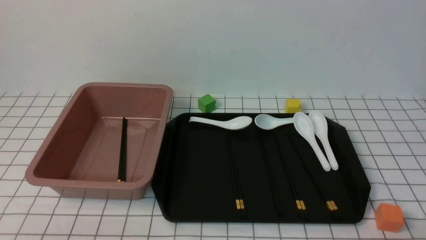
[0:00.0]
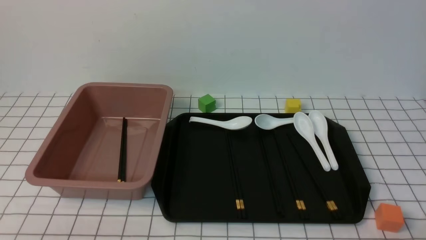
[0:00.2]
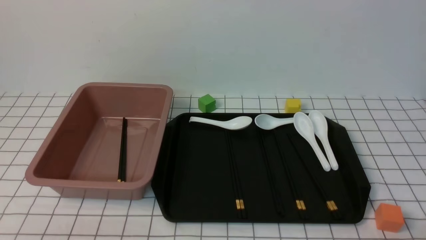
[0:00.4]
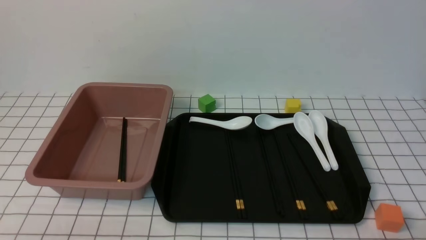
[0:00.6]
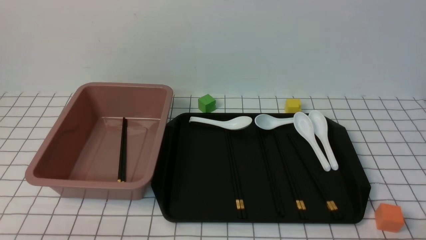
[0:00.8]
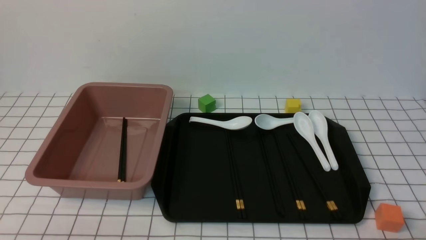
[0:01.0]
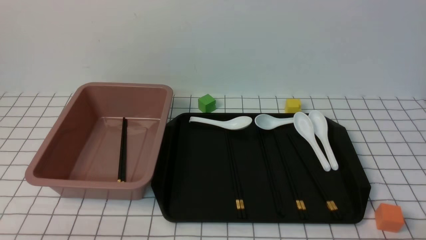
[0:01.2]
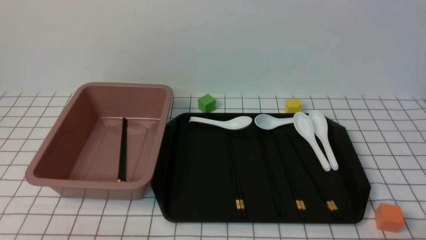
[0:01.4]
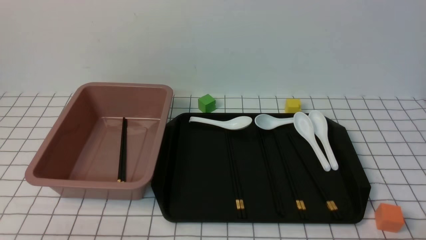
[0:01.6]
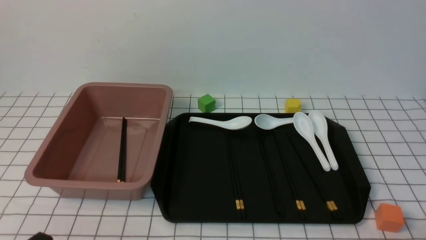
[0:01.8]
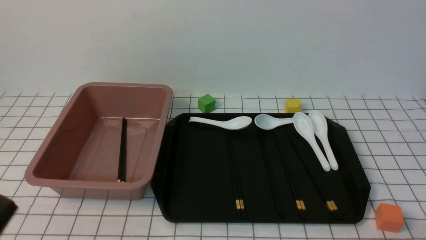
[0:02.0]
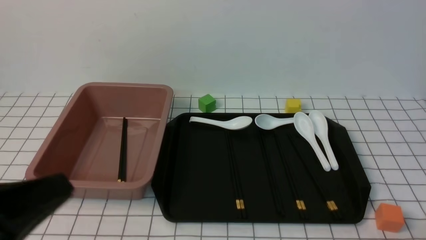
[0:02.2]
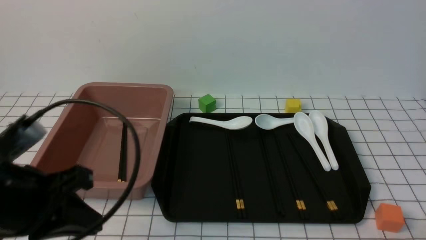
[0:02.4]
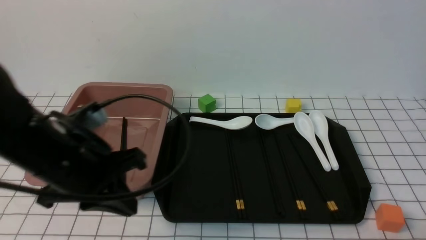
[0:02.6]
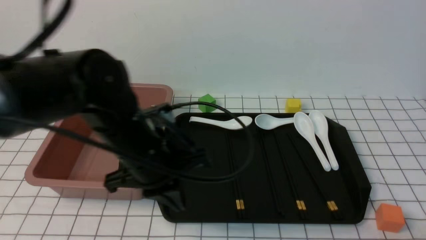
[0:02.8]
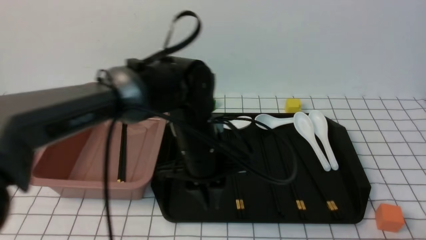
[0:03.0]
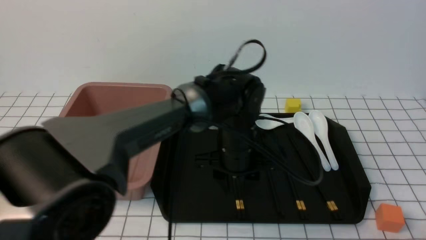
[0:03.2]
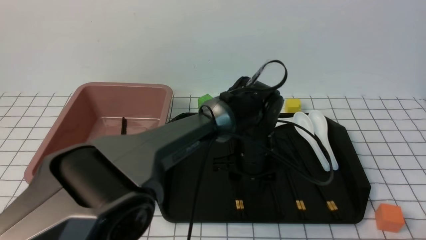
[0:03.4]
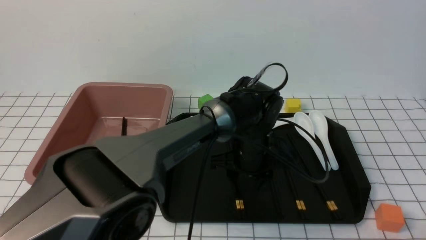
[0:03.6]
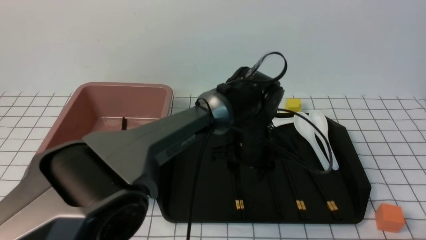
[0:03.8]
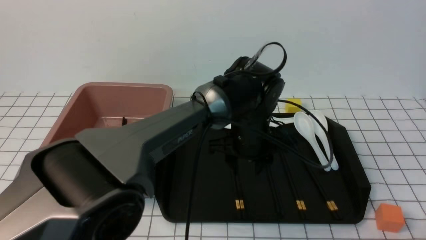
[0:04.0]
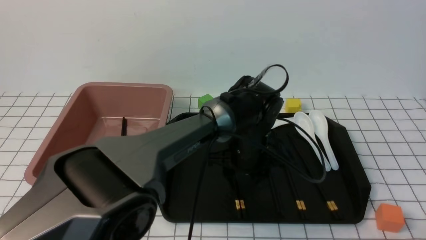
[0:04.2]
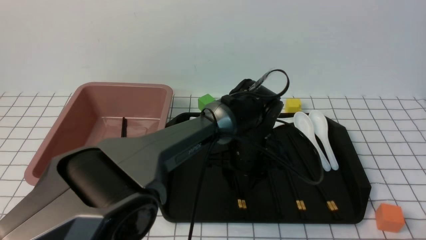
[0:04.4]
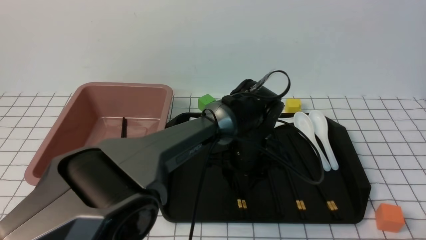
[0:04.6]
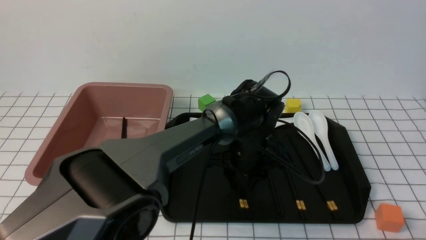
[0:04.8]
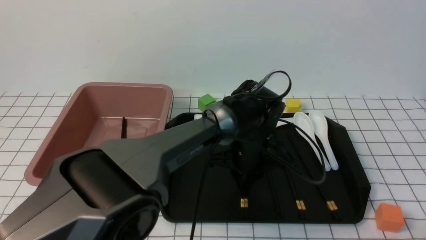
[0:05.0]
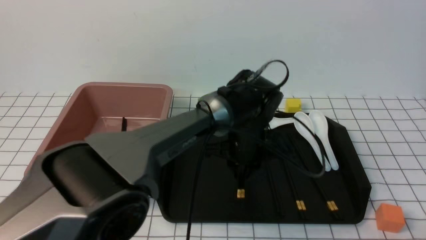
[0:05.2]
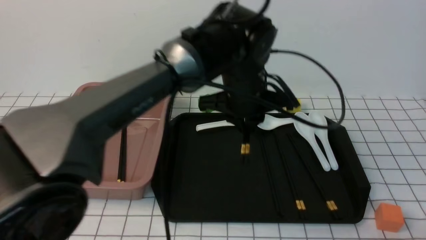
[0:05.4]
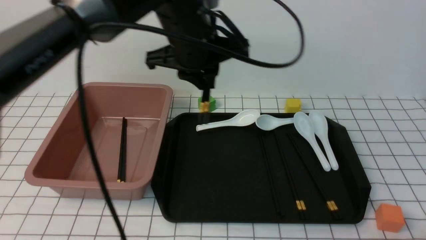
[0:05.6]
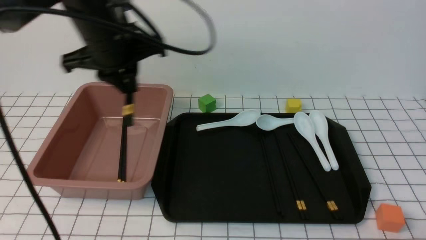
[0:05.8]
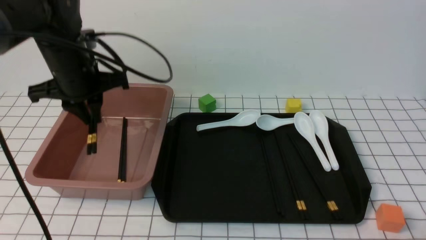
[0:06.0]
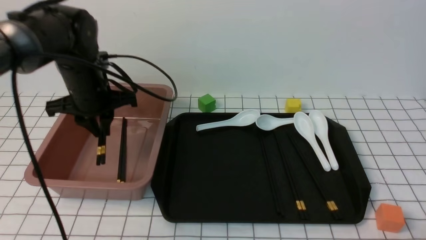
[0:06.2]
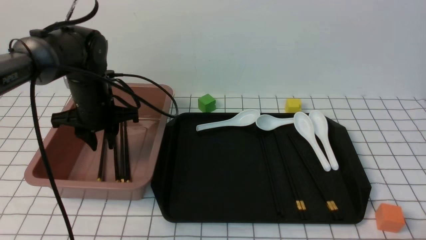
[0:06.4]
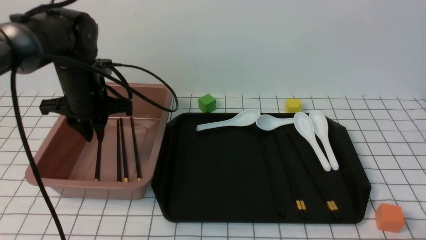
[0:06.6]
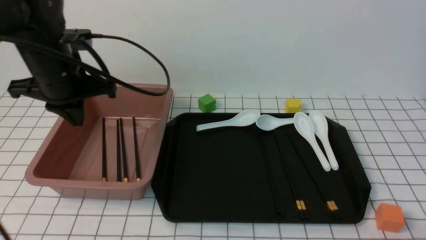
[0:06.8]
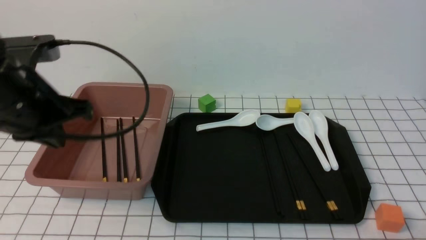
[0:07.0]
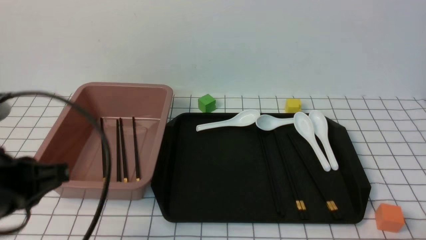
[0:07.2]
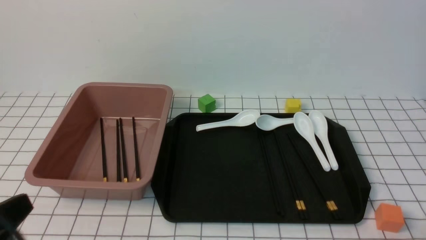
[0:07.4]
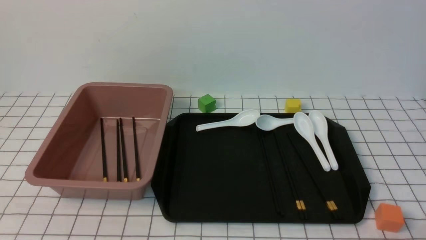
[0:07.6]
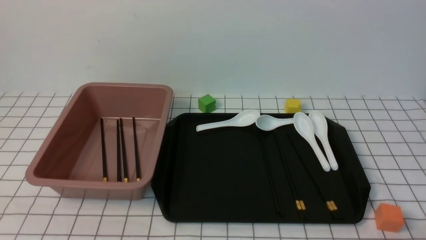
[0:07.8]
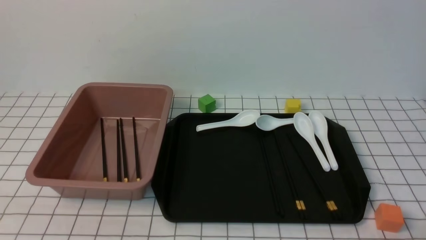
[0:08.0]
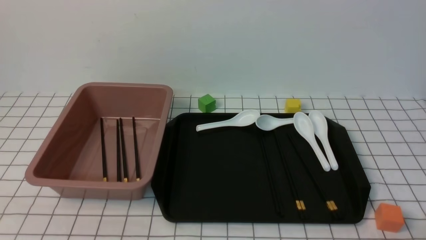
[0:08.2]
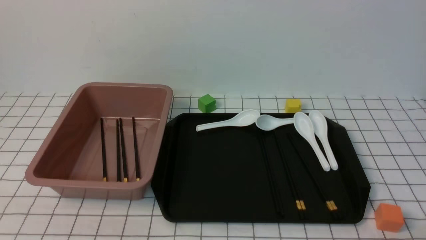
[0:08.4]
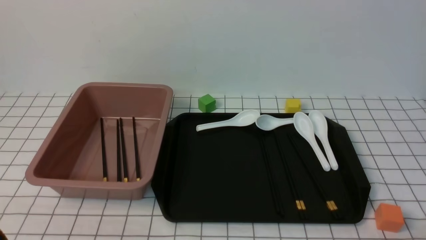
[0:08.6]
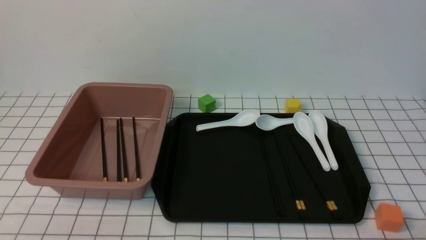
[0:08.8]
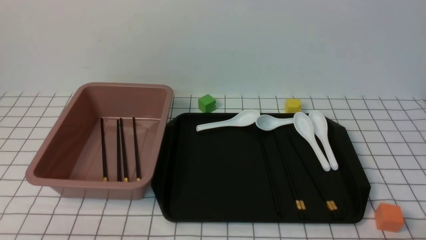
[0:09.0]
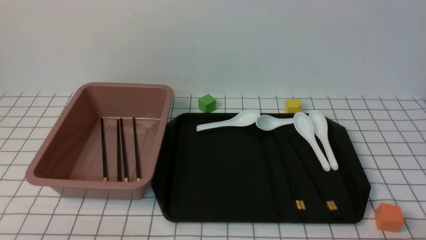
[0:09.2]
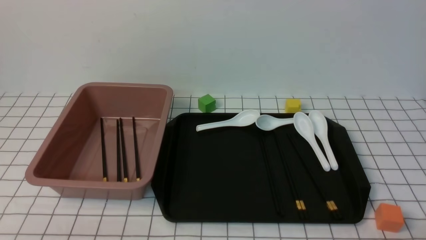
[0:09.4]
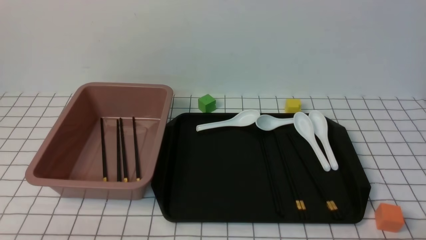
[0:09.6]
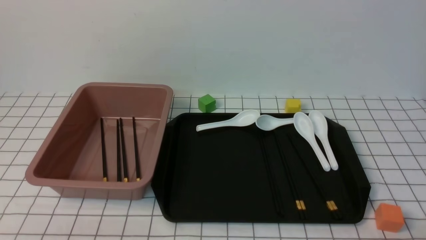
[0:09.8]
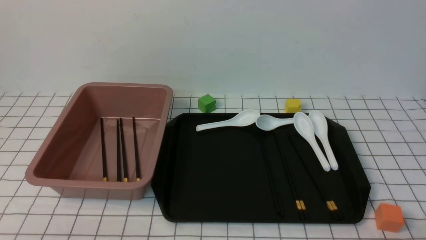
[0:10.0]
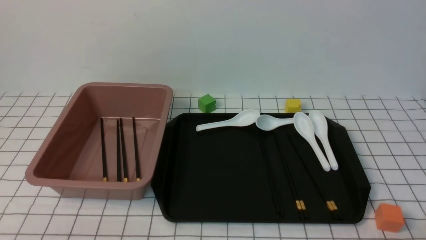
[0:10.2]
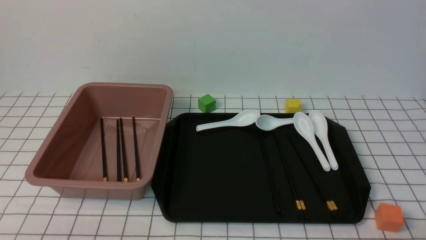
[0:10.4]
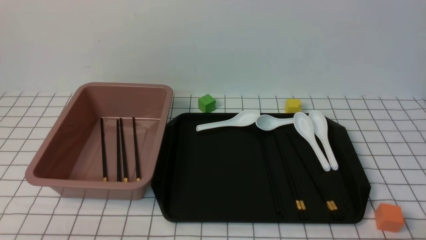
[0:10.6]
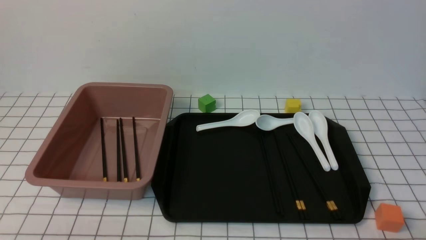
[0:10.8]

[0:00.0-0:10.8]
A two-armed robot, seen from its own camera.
Step, 0:00.0 to 0:05.4: use the left arm to grab a pair of chopsticks.
Step, 0:05.6 to 0:06.6: use the left arm to put the chopsticks into the lunch box.
0:01.6 to 0:03.0: The left gripper goes roughly 30 cm forward and to the right.
0:03.0 to 0:04.6: The left gripper shifts roughly 15 cm to the right, downward and forward, and opens its fingers.
0:04.6 to 0:06.2: The left gripper travels to the left and upward by roughly 30 cm, and closes.
0:06.2 to 0:07.8: The left gripper moves backward, roughly 35 cm, and closes its fingers.
0:09.2 to 0:10.8: Both grippers stay put.

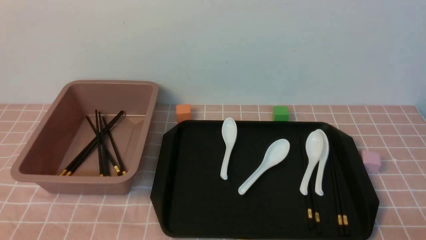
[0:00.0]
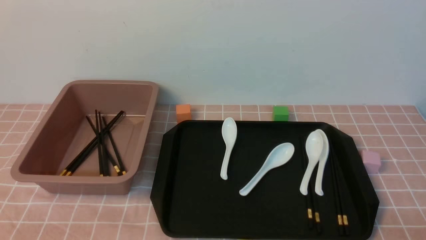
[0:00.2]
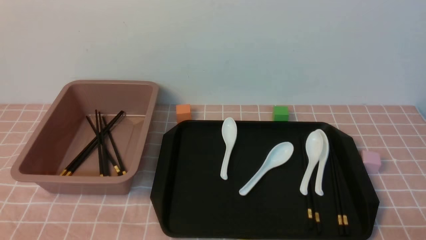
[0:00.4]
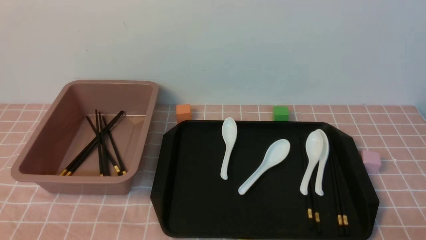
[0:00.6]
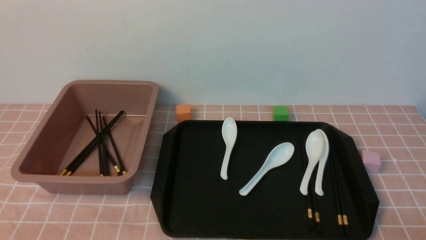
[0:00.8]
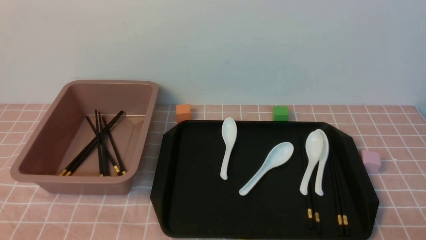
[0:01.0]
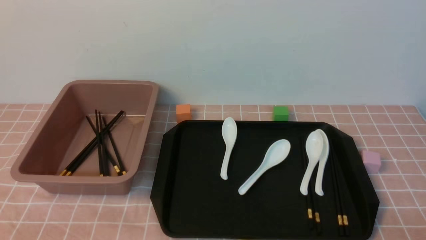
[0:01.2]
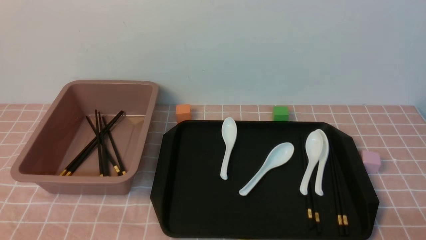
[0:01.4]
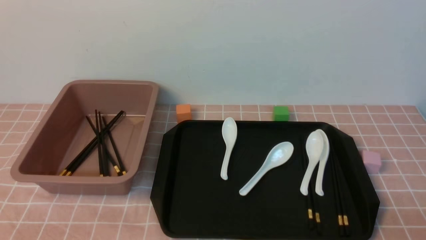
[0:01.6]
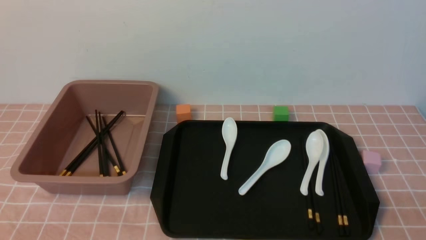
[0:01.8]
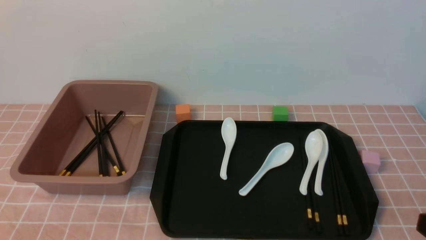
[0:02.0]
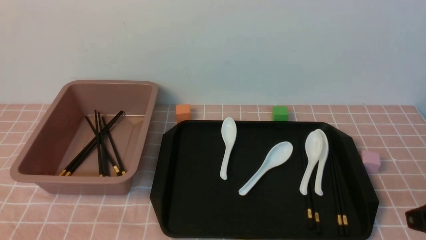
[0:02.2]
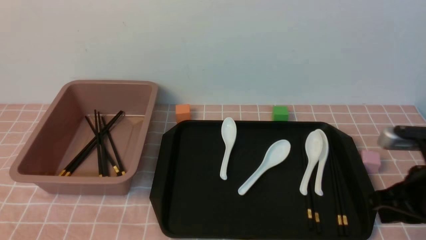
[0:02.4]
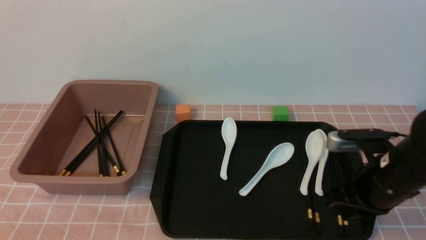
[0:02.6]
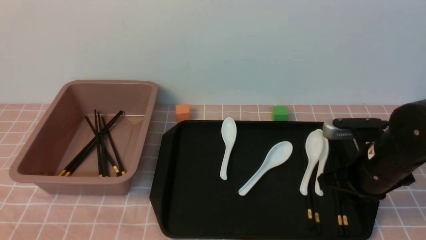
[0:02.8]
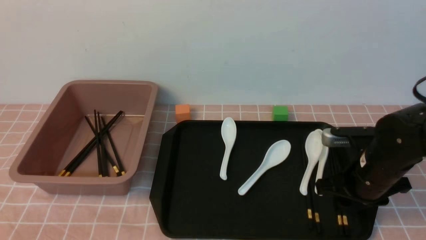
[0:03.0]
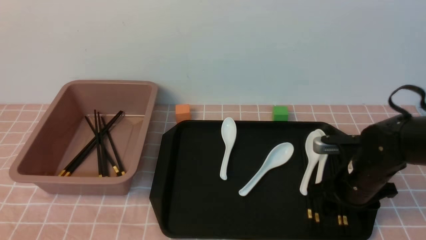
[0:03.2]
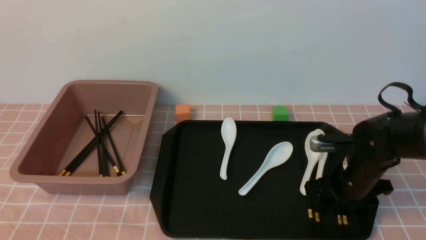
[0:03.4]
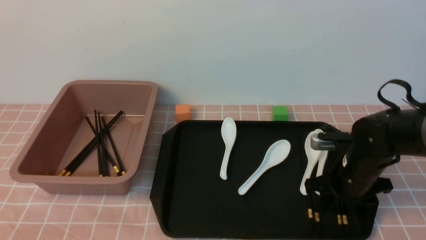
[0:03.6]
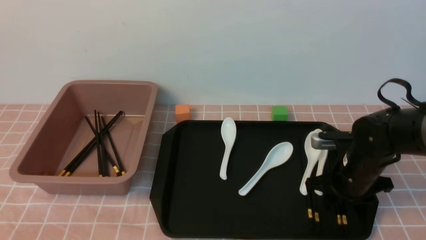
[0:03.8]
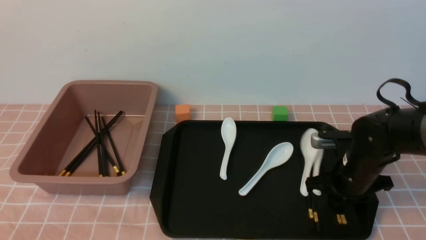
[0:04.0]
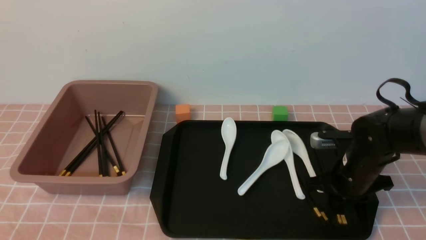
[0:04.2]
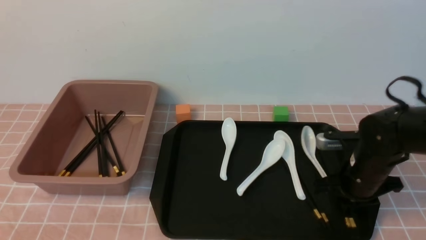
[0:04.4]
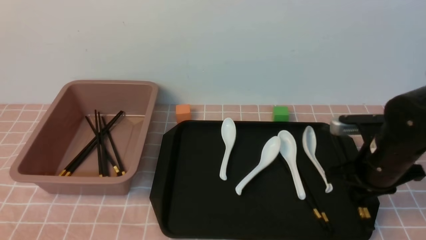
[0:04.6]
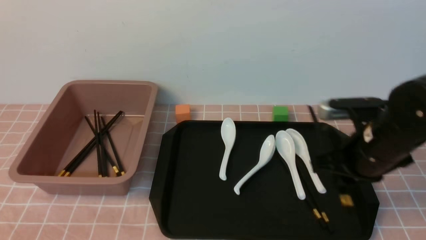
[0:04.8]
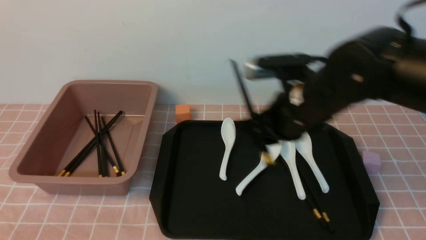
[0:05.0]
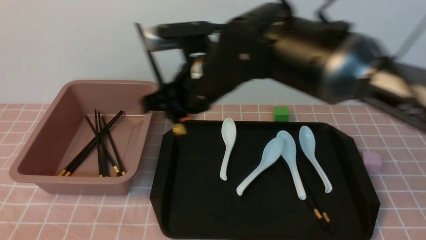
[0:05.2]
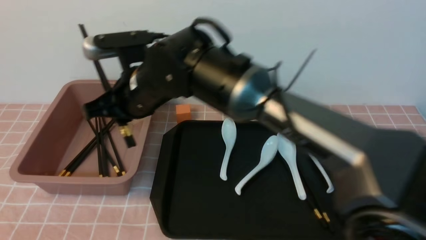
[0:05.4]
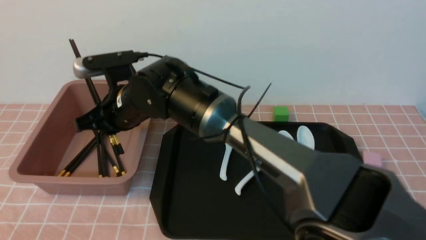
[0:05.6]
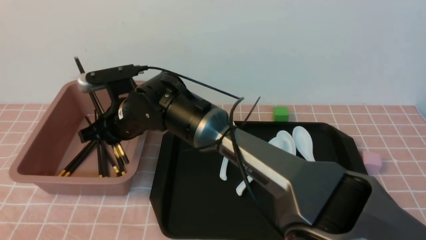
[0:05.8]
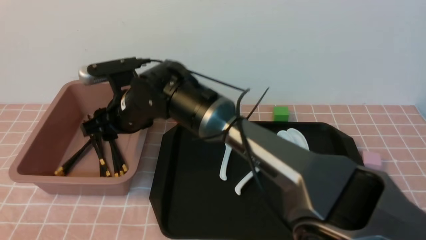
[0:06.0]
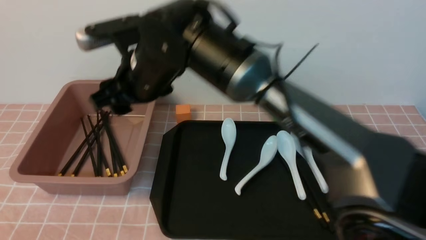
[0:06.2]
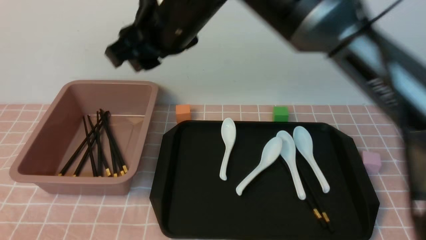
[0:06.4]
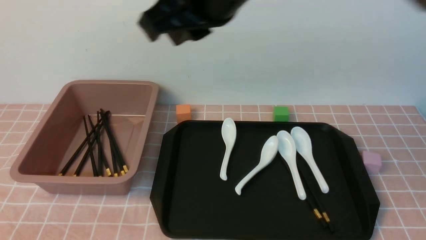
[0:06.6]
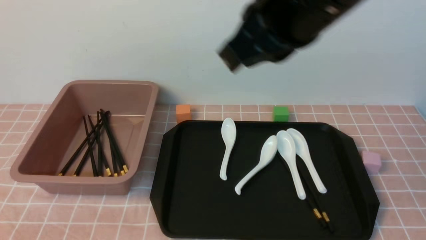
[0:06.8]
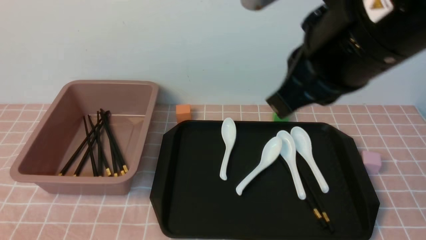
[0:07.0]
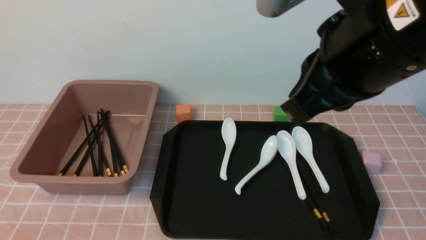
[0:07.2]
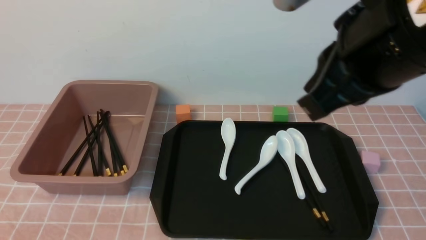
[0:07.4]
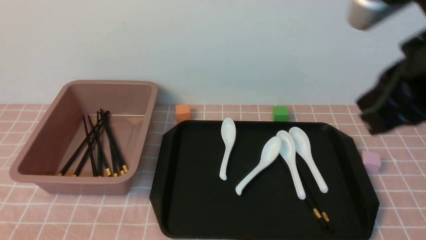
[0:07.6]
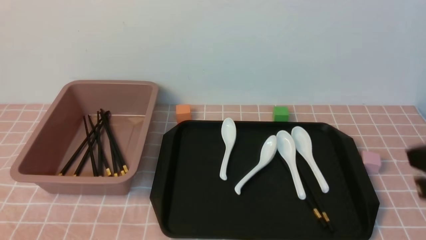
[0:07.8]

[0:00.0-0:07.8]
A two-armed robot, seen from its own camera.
Step, 0:00.0 to 0:04.6: use the right arm to grab a pair of chopsticks.
Step, 0:05.0 to 0:07.0: use the right arm to put the chopsticks into the lunch box.
0:01.6 to 0:03.2: The right gripper moves forward, about 25 cm, and opens.
0:03.2 to 0:04.6: The right gripper shifts about 5 cm upward, and closes up.
0:04.6 to 0:06.2: The right gripper goes about 30 cm to the left and upward, and opens up.
0:06.2 to 0:07.8: The right gripper travels to the right and backward by some 40 cm, and closes its fingers.
